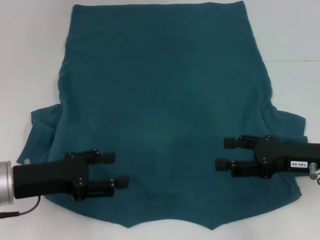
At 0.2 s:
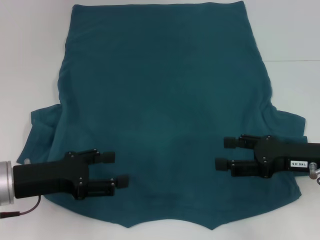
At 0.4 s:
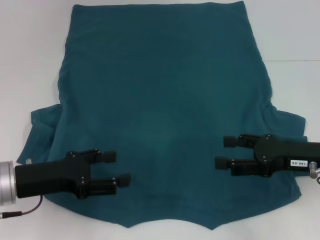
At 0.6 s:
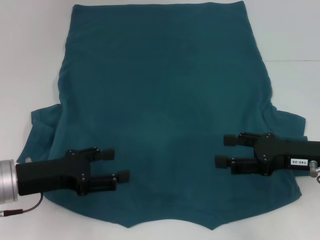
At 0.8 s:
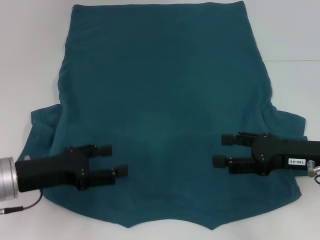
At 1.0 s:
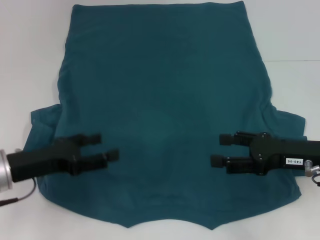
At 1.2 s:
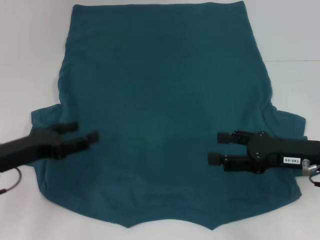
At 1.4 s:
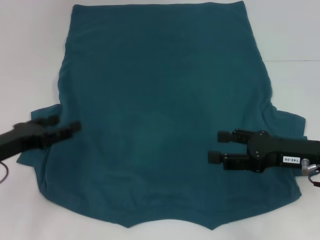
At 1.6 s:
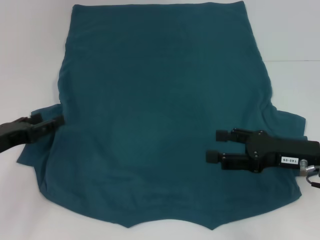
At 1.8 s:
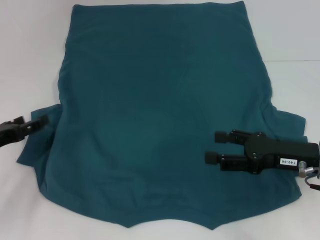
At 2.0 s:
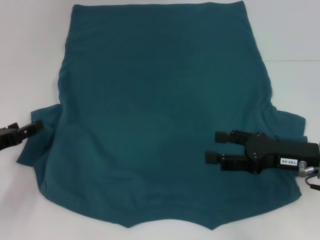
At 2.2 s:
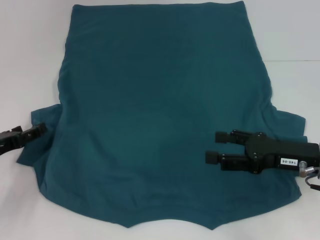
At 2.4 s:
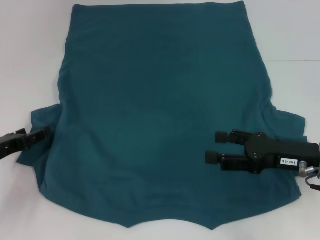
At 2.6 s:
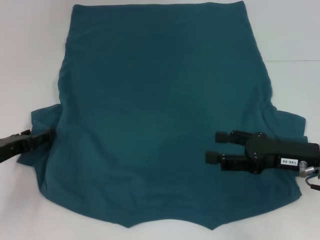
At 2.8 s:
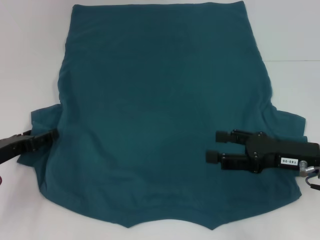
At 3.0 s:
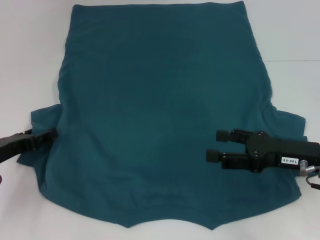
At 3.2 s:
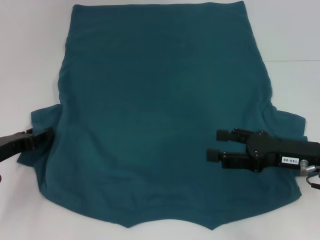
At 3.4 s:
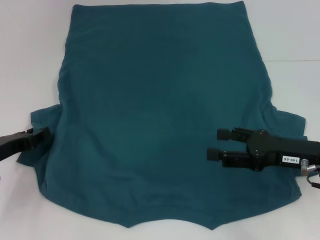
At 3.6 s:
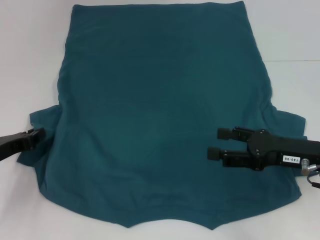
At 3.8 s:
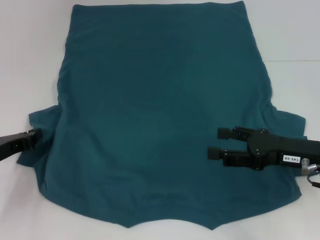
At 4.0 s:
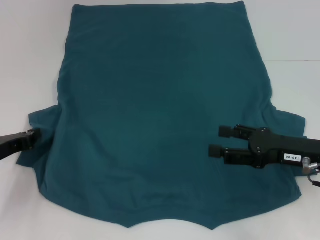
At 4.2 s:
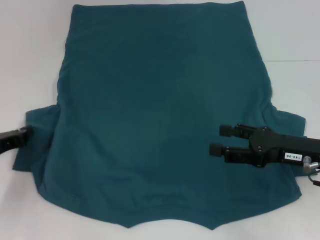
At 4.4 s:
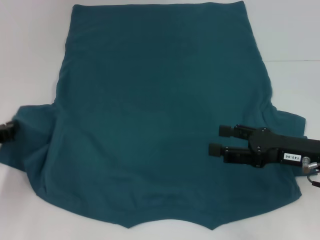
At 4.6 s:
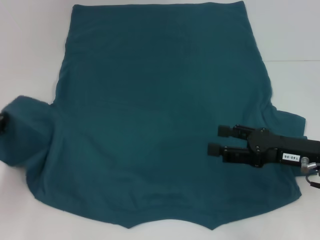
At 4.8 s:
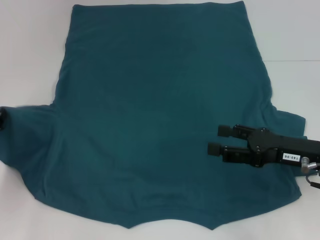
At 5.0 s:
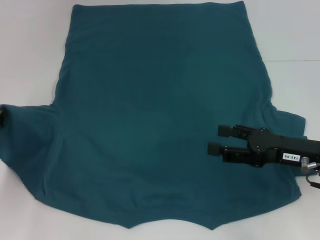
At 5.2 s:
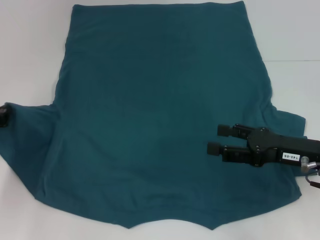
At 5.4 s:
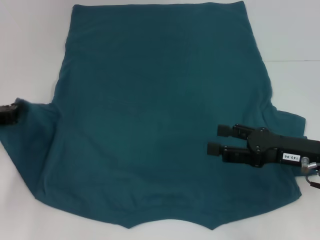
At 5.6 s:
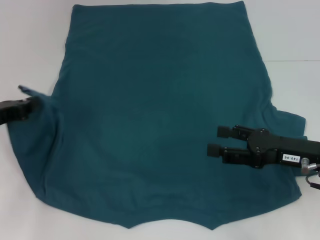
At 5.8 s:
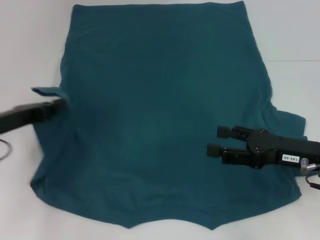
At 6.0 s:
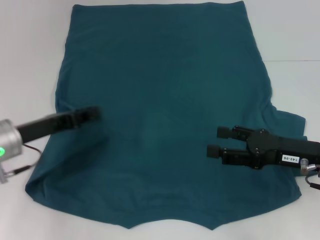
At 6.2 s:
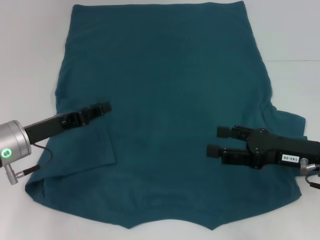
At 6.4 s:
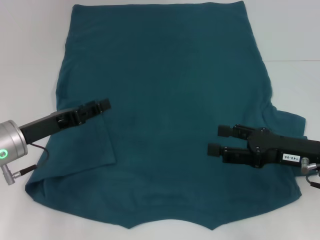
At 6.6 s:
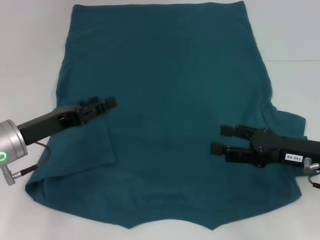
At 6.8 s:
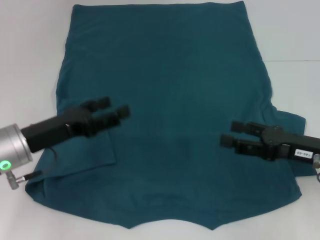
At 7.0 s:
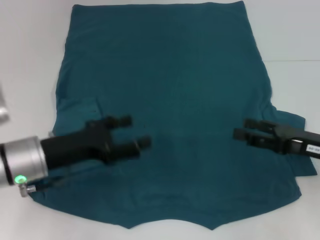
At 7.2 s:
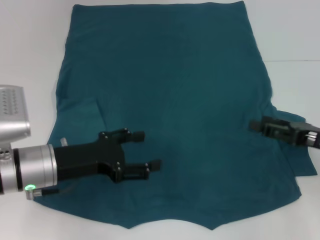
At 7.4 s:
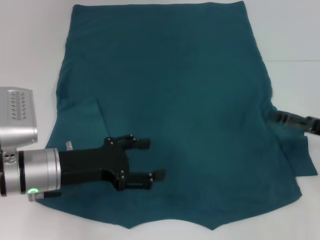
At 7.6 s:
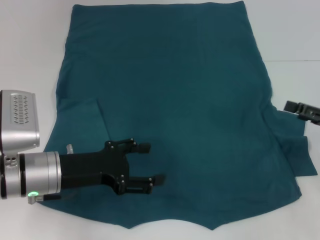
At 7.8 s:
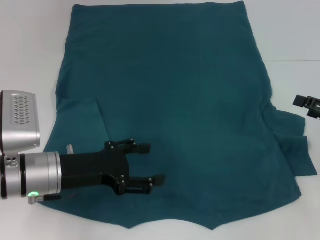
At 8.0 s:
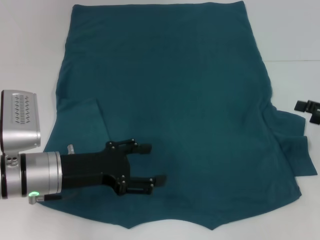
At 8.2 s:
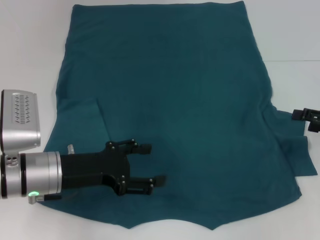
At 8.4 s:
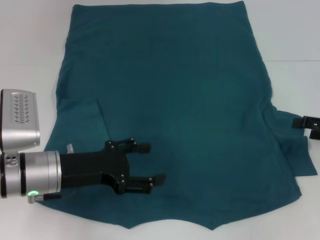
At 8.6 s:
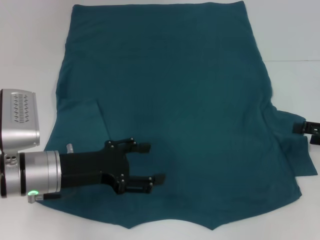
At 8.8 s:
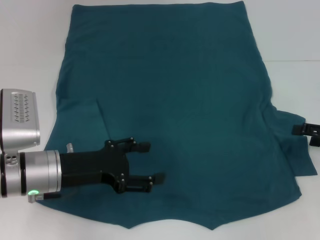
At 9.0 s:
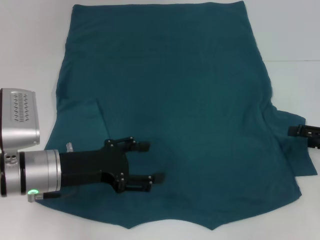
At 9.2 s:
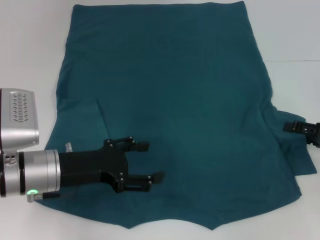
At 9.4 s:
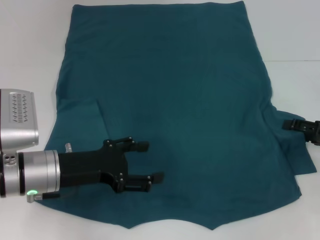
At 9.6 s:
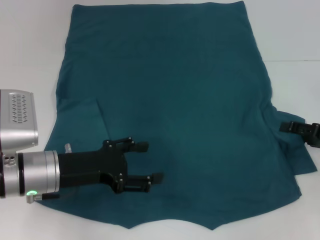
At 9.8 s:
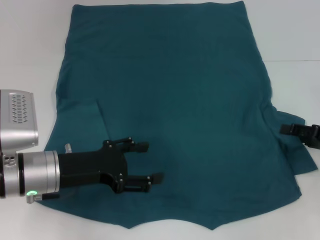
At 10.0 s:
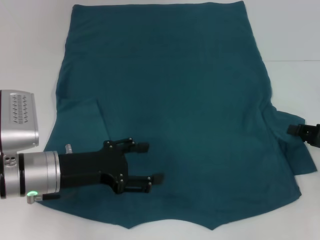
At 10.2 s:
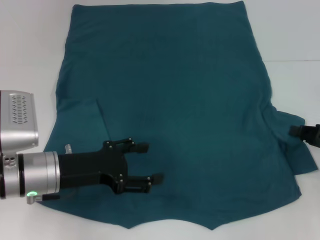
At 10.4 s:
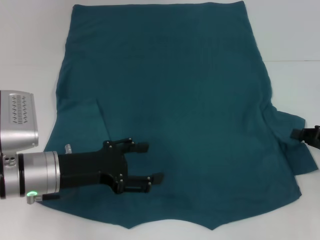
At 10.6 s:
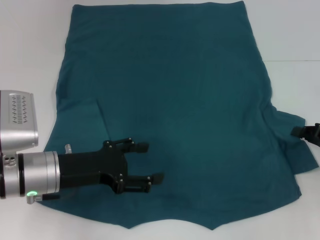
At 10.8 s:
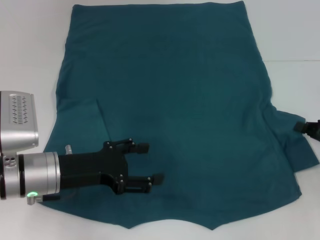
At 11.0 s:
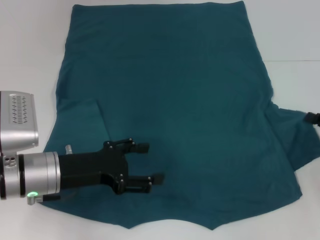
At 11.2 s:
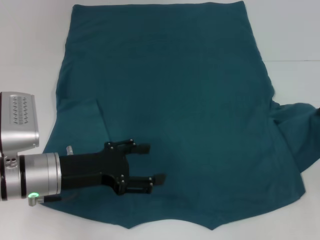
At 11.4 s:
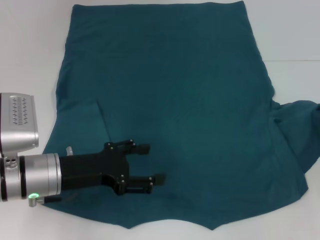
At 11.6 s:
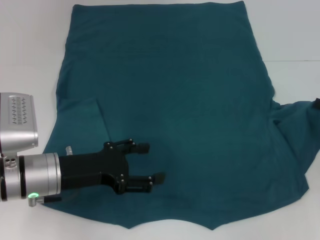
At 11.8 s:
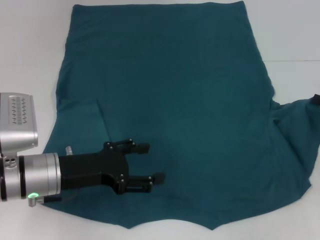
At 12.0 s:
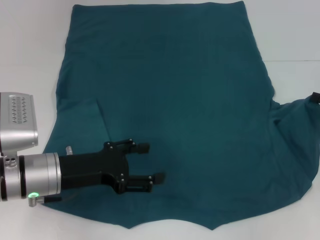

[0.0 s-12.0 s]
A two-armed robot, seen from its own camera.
Step, 0.0 to 6.4 s: Fold the bottom left sleeve with your left hand.
0.0 to 1.6 s: The left gripper goes some 5 cm to the left.
1.6 to 3.0 s: There are only small adjustments of the grippers.
3.0 to 4.4 s: The left gripper closes.
4.4 to 6.0 s: The left gripper shifts some 10 cm to the right.
6.0 to 7.6 s: The right gripper goes about 10 cm to the right; the left gripper travels to the right by about 5 cm, and opens up.
7.6 to 9.0 s: The grippers stay close to where they were, moving slightly.
9.0 to 10.4 s: The right gripper closes its fingers.
10.4 to 12.0 s: The right gripper moves about 5 cm.

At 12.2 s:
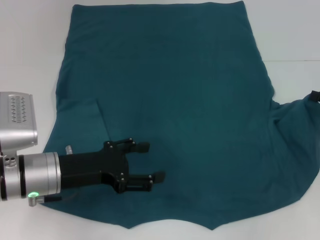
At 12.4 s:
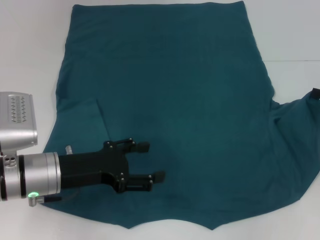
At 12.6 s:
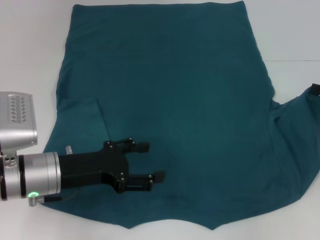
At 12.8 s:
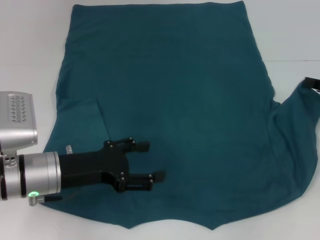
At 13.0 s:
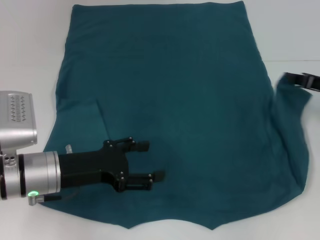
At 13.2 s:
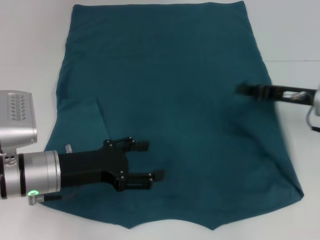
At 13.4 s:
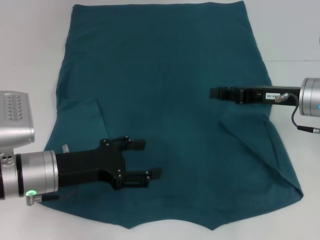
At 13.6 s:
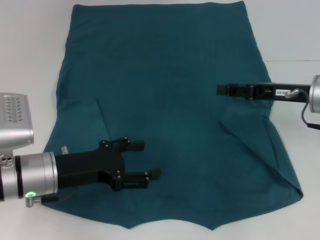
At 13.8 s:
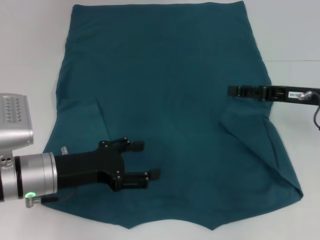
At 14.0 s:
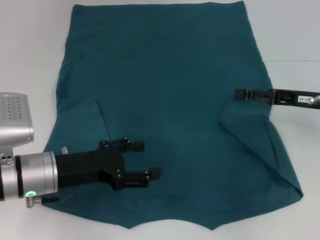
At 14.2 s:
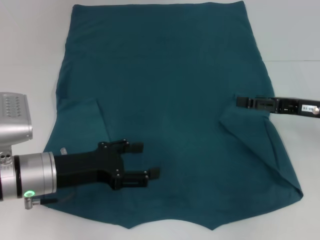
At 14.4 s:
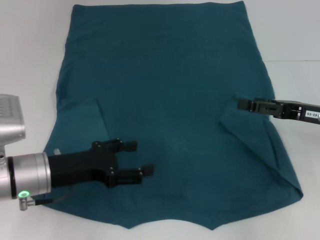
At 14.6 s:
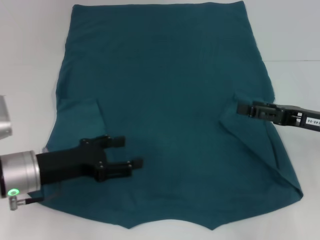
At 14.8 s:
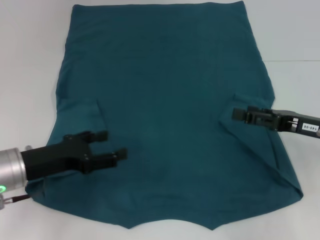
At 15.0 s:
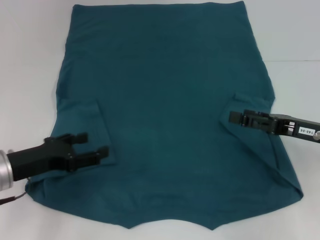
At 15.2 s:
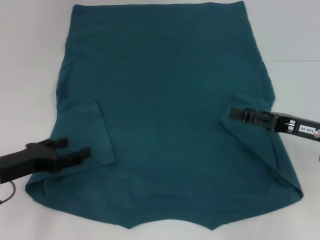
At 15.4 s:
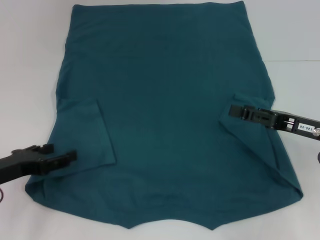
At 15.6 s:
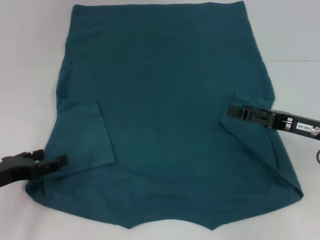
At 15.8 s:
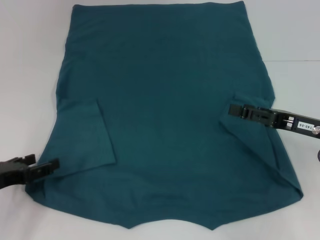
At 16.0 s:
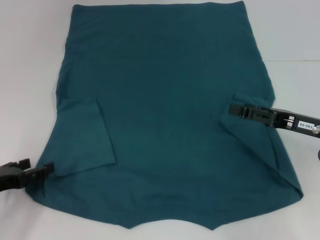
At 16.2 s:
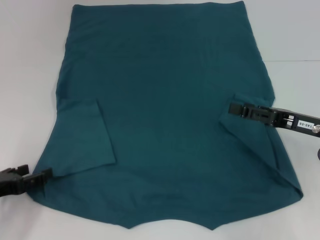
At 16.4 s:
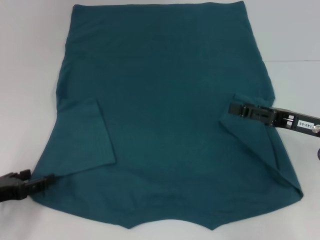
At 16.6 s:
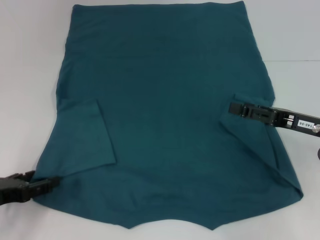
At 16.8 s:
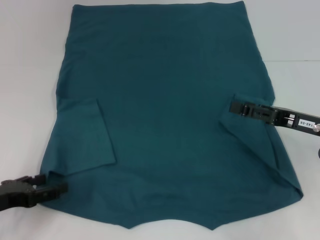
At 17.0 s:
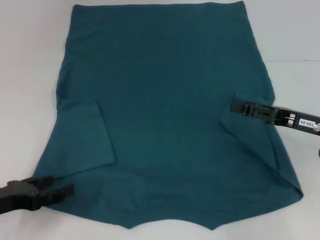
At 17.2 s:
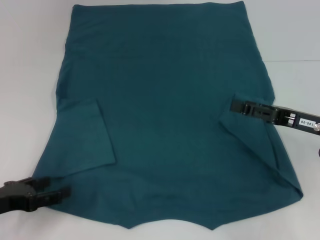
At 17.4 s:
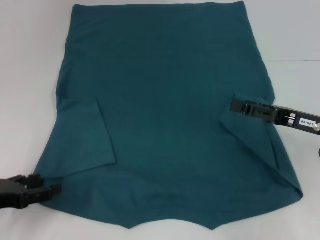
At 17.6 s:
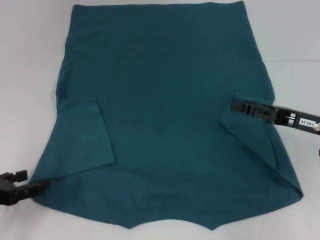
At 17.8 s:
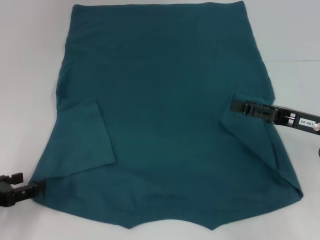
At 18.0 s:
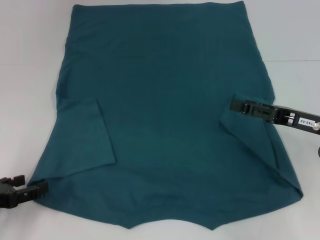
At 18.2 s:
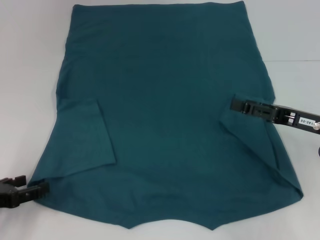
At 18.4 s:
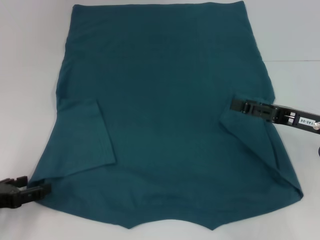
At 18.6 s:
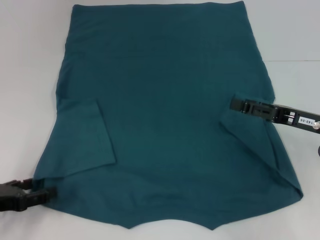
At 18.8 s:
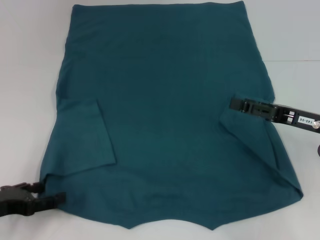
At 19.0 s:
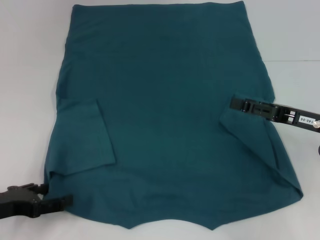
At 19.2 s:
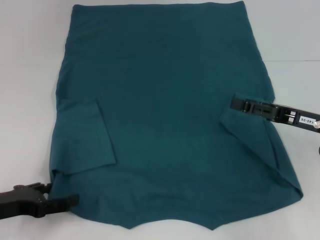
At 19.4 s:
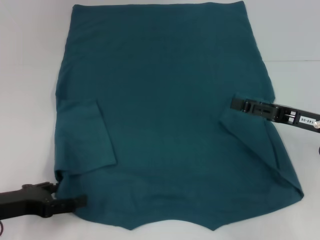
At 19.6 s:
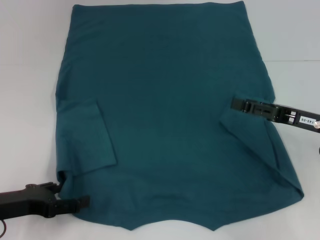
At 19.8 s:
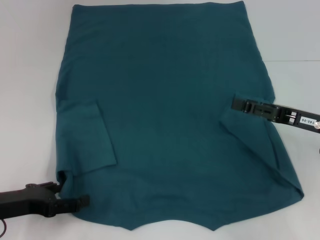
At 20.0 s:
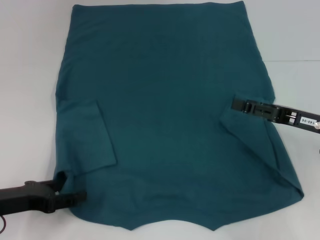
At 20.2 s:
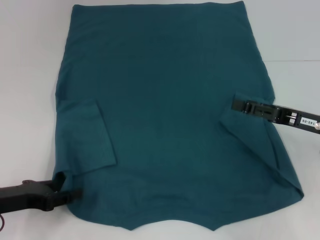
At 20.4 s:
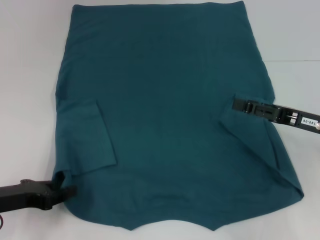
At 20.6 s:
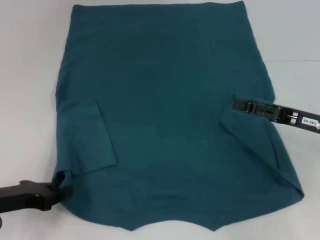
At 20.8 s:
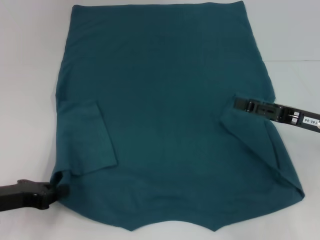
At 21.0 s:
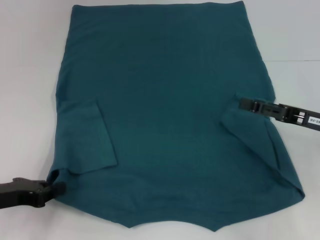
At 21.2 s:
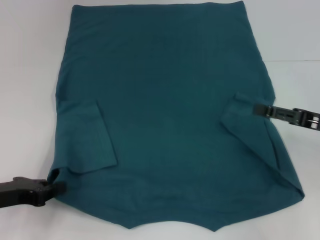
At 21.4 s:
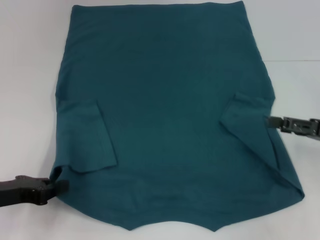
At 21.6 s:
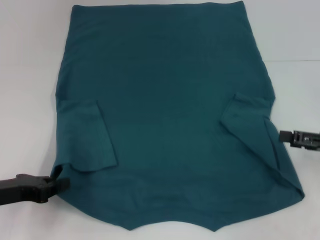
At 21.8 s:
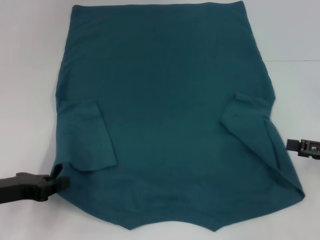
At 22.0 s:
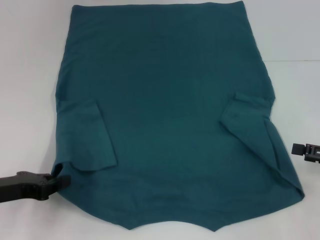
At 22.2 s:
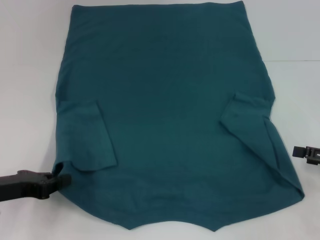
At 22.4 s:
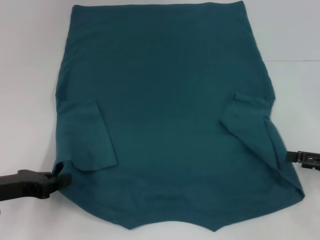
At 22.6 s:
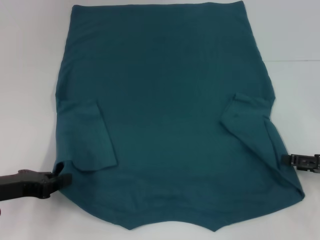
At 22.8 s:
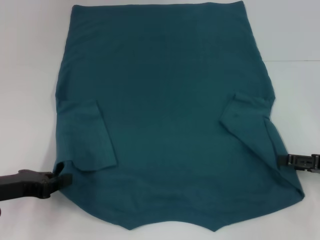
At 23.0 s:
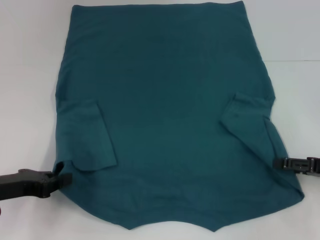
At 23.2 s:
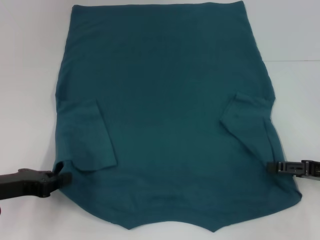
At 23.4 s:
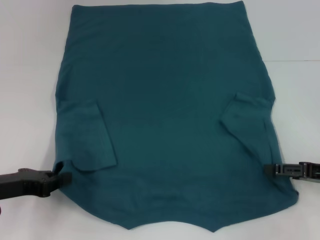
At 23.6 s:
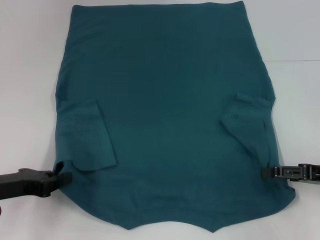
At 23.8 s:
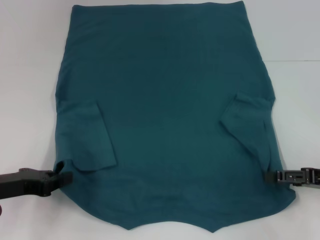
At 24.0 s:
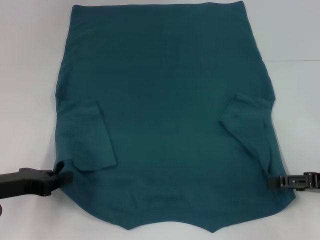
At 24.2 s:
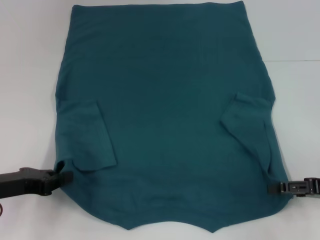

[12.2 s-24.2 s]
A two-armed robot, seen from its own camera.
Step, 12.2 to 14.2 s: Fold the bottom right sleeve to the right.
Step, 14.4 to 20.8 s: Grab the bottom left corner with your left hand.
12.2 to 13.8 s: The right gripper goes roughly 10 cm to the left, and opens.
13.8 to 15.2 s: The right gripper moves backward, approximately 5 cm, and opens its fingers, while the left gripper heads to the left, covering about 10 cm.
15.2 to 16.6 s: The left gripper changes place by roughly 5 cm.
16.6 to 19.8 s: The grippers stay close to where they were, moving slightly.
19.8 to 21.2 s: The left gripper closes.
21.2 to 22.6 s: The right gripper ends up roughly 5 cm from where it was.
22.6 to 24.2 s: The grippers stay close to where they were, moving slightly.
